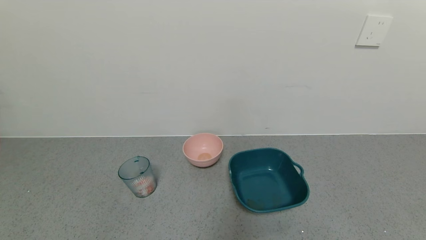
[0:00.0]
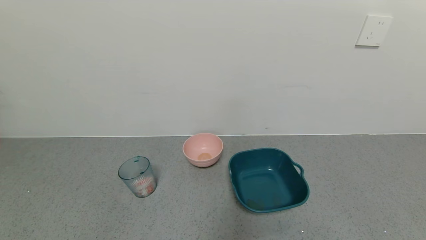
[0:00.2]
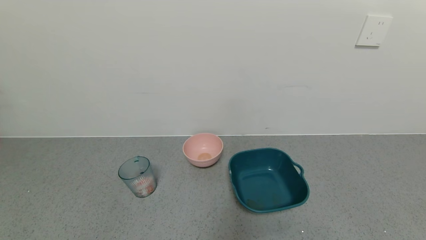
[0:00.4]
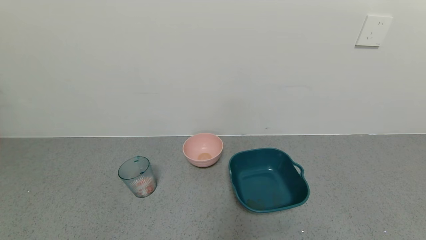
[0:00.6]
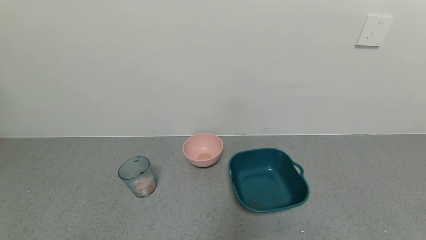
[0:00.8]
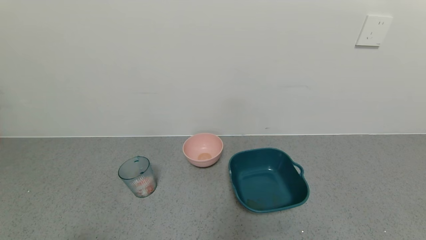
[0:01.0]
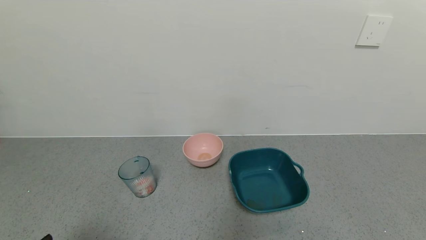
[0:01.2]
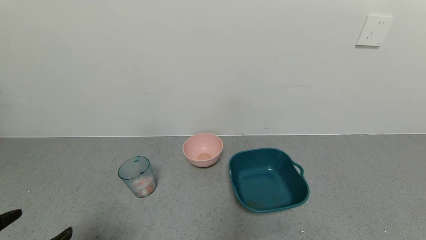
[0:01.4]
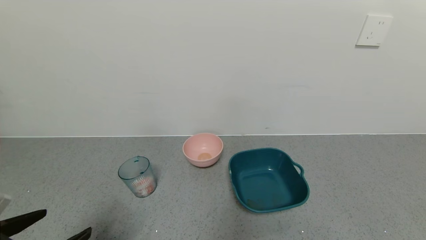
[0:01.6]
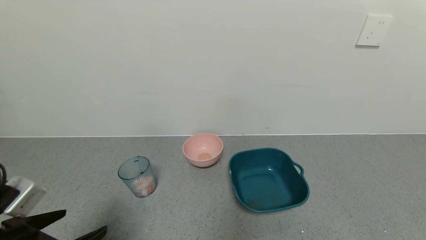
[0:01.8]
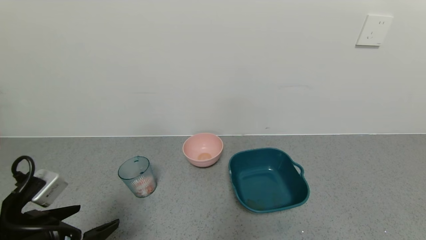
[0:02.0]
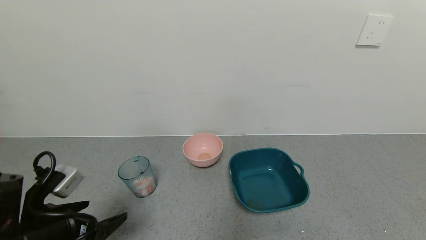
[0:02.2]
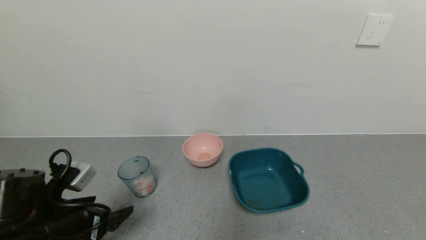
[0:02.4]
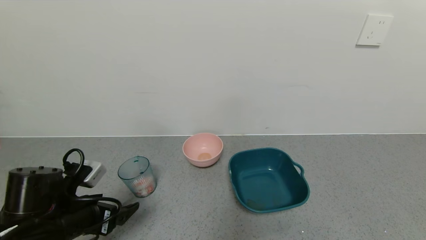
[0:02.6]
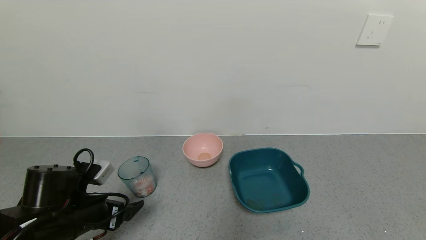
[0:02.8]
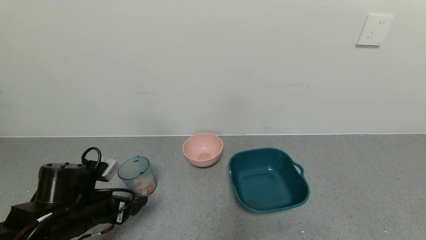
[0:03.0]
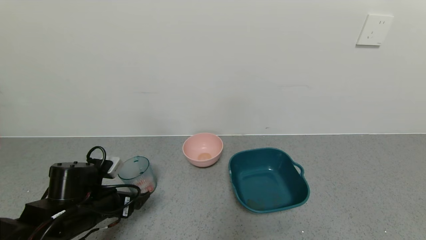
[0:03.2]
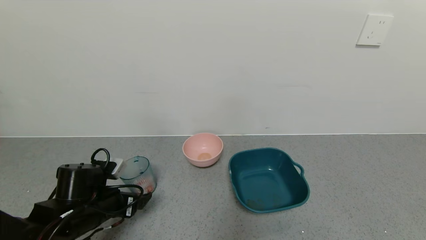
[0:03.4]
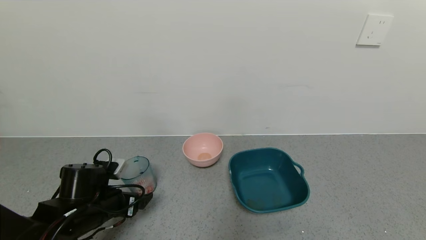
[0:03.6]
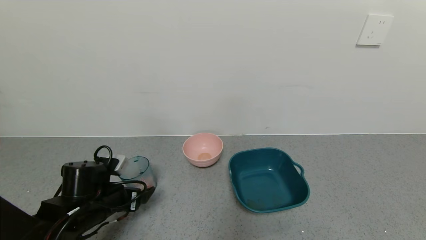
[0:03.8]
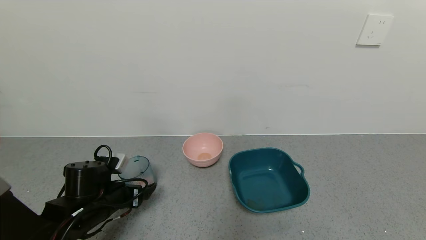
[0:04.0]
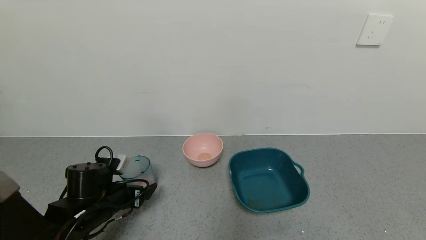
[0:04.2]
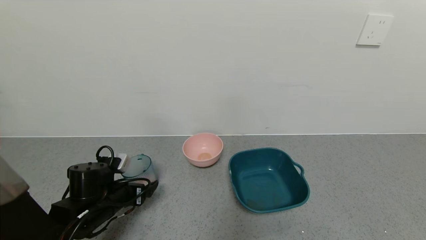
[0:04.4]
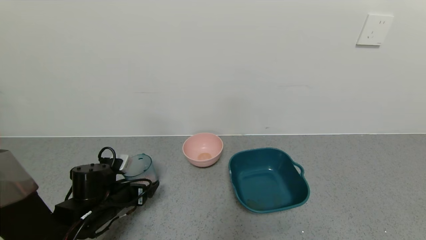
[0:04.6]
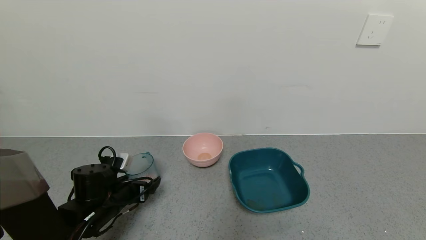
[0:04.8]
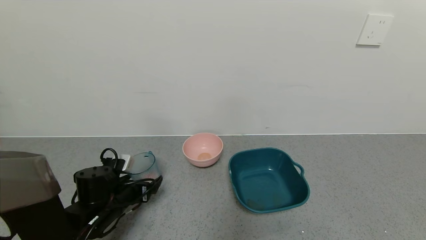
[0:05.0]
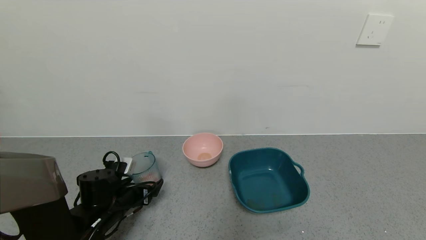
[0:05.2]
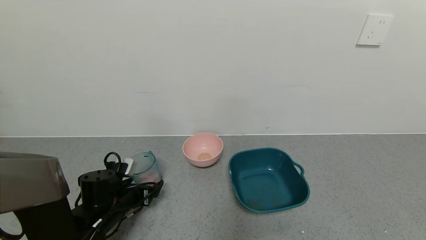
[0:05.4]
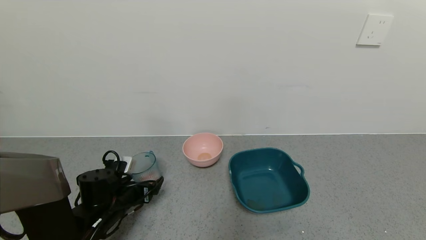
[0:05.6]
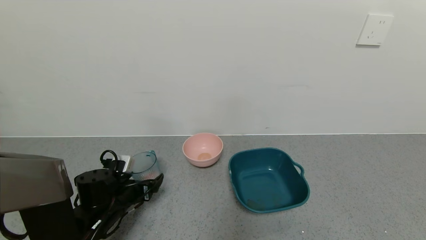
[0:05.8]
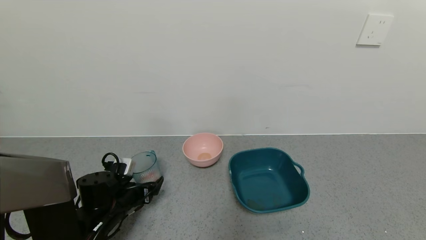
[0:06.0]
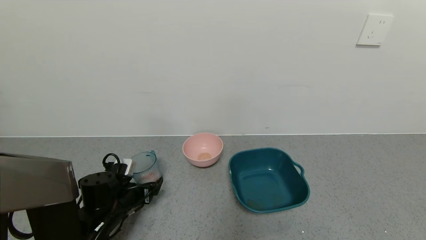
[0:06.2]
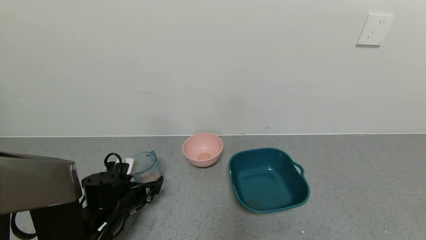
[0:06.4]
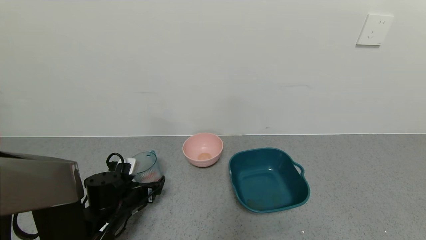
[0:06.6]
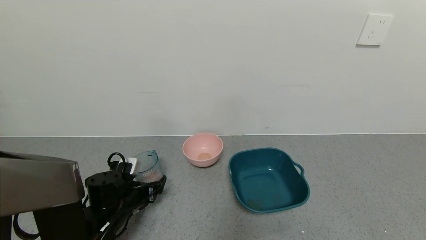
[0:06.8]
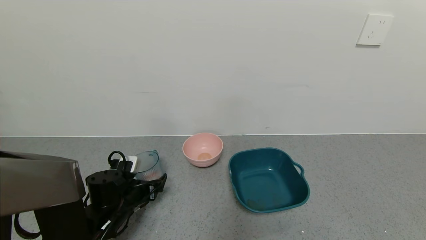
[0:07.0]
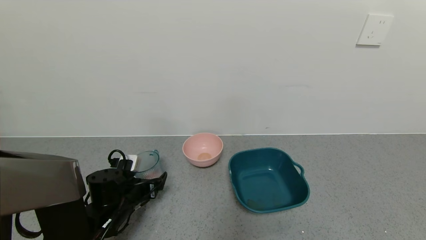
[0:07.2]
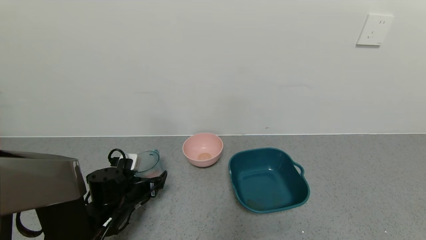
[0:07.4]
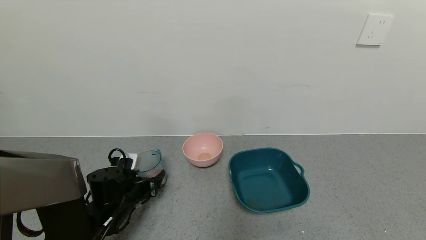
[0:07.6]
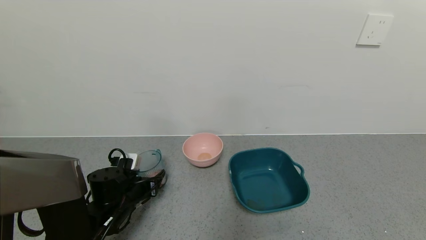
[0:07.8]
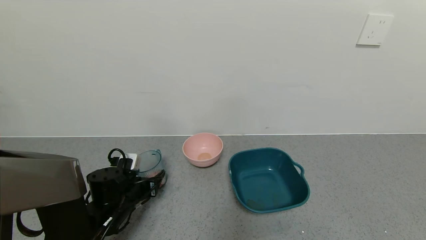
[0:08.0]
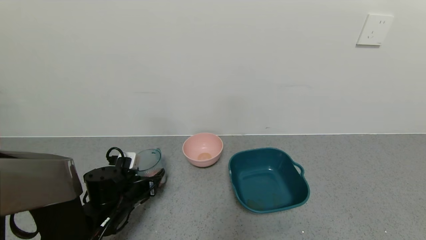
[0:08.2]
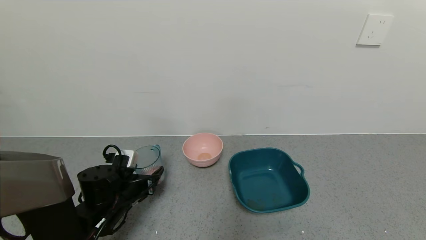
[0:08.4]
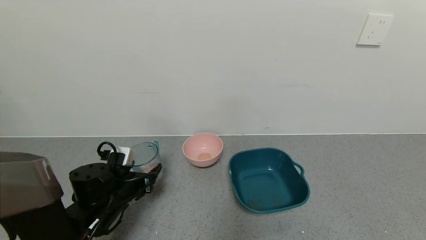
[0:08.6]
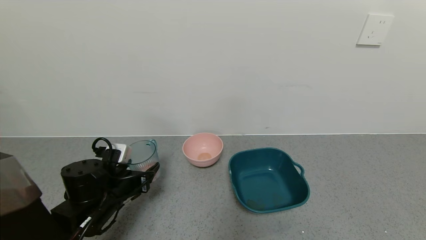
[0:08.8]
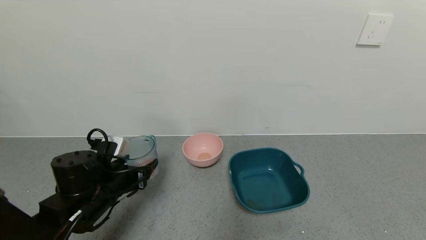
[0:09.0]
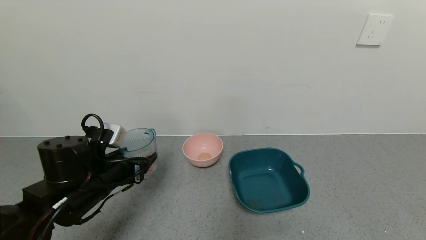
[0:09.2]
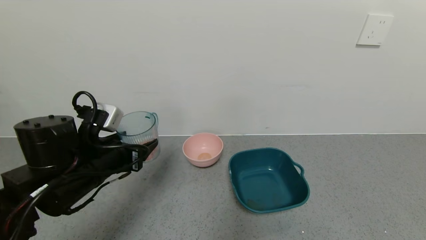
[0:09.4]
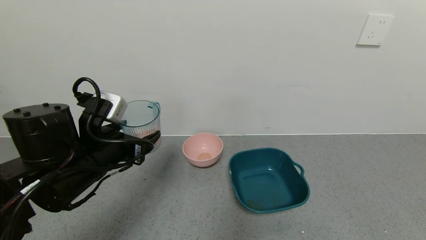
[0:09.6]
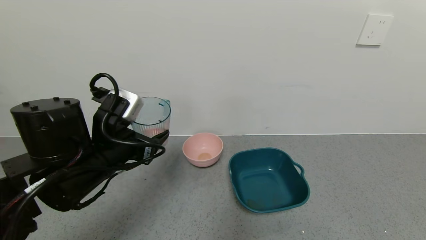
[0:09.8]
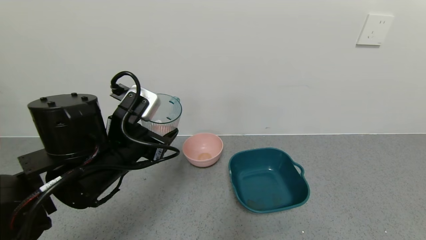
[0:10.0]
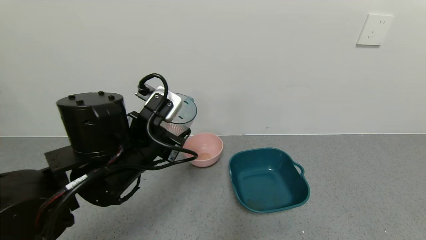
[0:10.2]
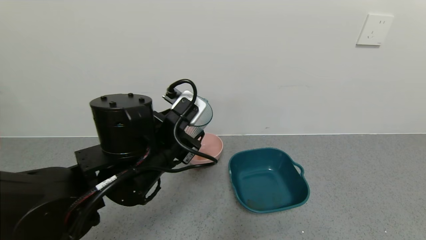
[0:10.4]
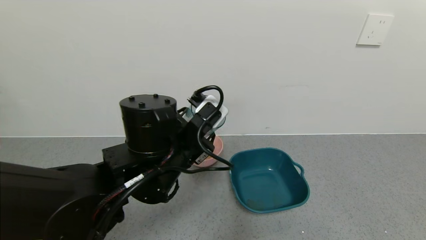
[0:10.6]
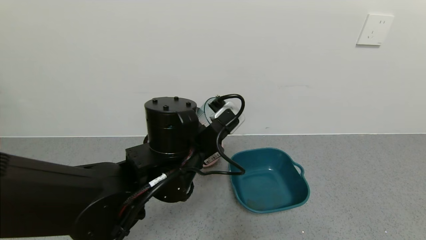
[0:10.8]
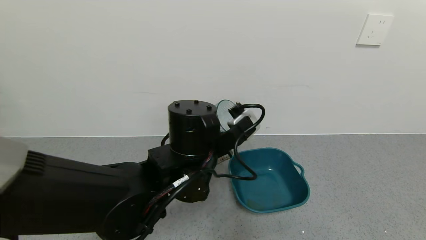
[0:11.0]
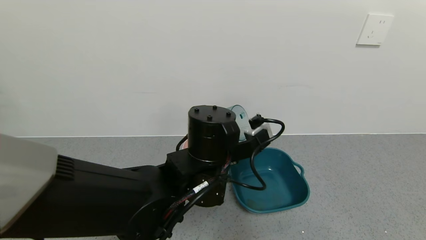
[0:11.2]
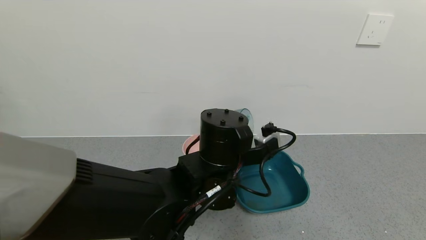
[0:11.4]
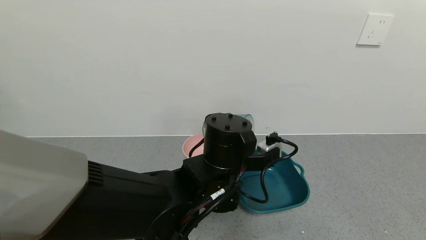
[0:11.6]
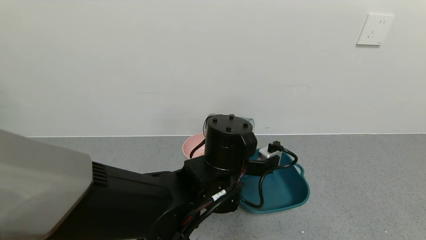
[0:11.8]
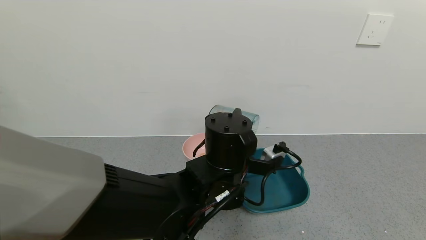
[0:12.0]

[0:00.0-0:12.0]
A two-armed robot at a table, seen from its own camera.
Task of the whole recording: use a gripper to pick up the cup and pour the solid into a bowl or tray.
Step, 0:00.0 to 0:07.6: Grasp the glass of shrimp with the left gripper.
0:00.0 to 0:01.6: The left gripper shifts approximately 15 cm forward and upward.
0:01.6 to 0:03.0: The left gripper is displaced forward and downward by approximately 15 cm.
0:03.0 to 0:04.4: The left gripper moves approximately 5 cm.
0:04.4 to 0:06.0: The grippers stay close to where they were, moving slightly.
0:06.0 to 0:07.6: The left gripper closes up.
0:07.6 to 0:09.0: The left gripper is displaced upward by roughly 10 cm.
0:09.0 to 0:10.4: The left gripper is displaced to the right and upward by roughly 15 cm.
0:10.4 to 0:12.0: The left gripper shifts some 10 cm to the right.

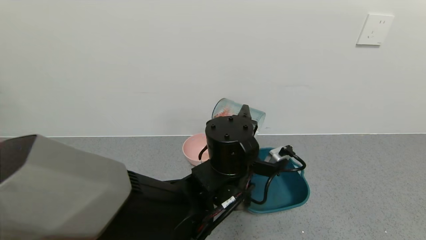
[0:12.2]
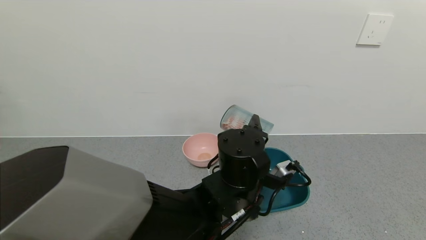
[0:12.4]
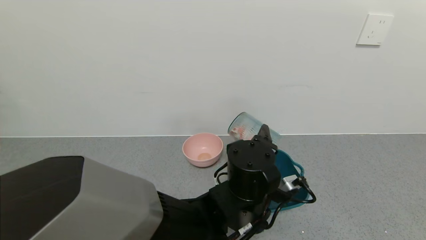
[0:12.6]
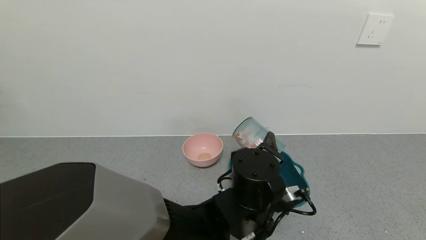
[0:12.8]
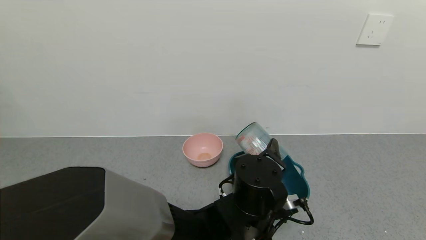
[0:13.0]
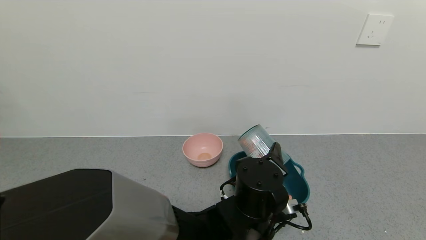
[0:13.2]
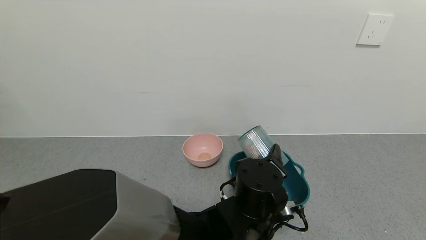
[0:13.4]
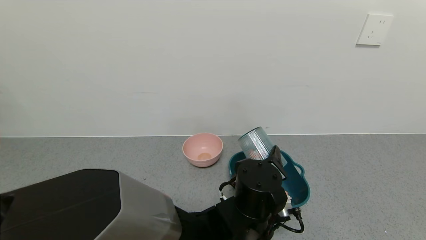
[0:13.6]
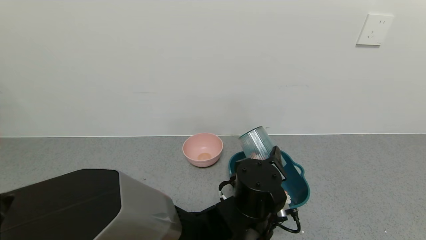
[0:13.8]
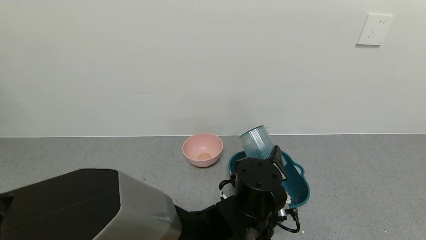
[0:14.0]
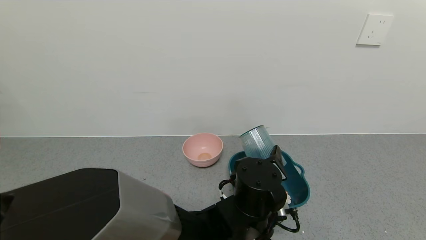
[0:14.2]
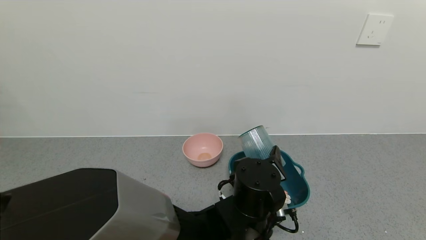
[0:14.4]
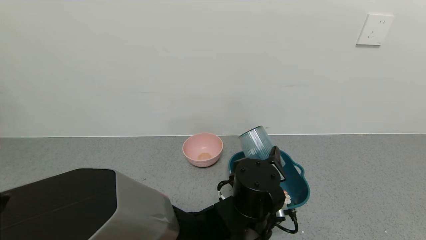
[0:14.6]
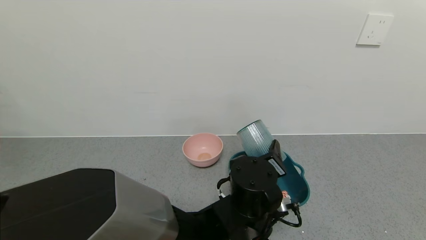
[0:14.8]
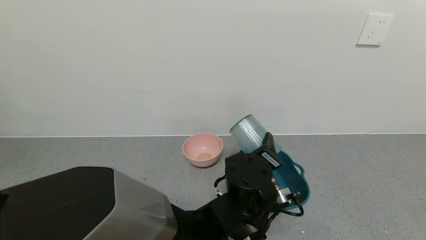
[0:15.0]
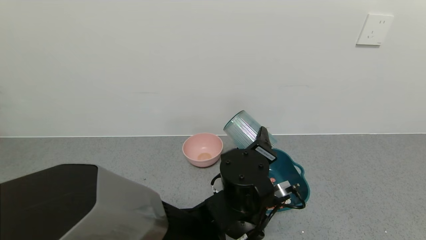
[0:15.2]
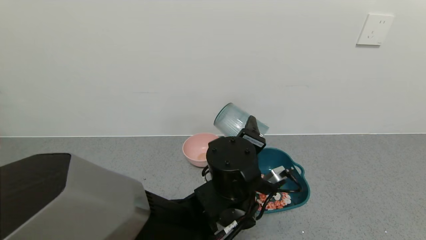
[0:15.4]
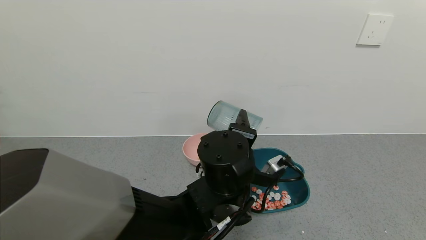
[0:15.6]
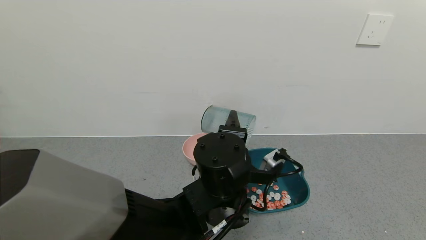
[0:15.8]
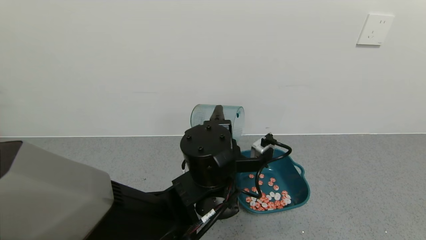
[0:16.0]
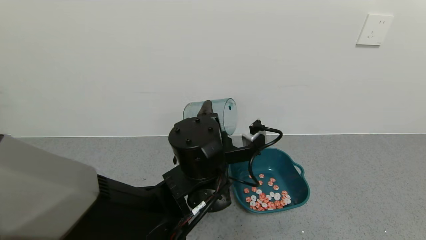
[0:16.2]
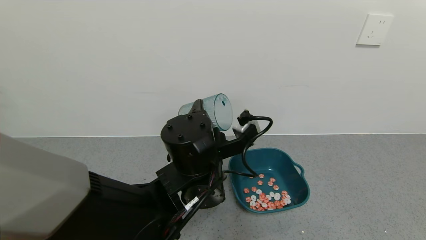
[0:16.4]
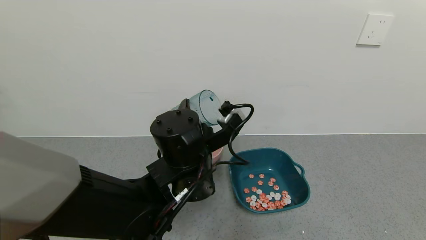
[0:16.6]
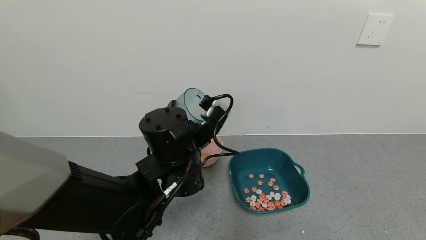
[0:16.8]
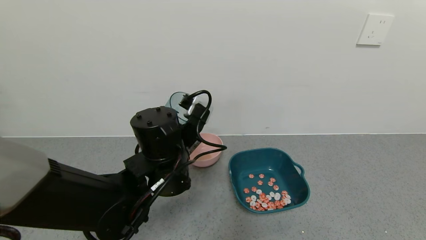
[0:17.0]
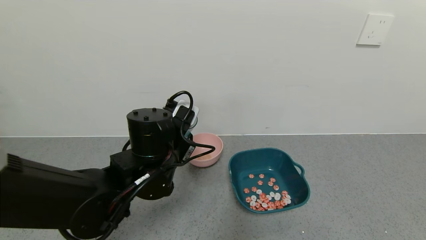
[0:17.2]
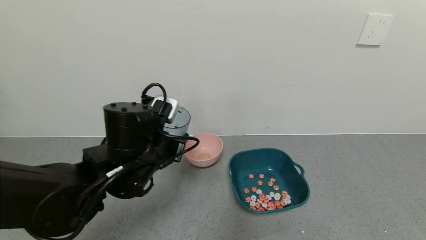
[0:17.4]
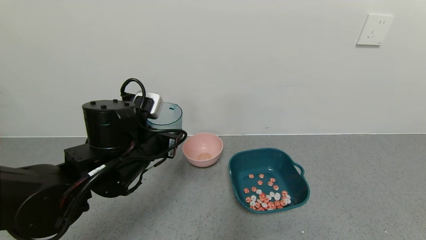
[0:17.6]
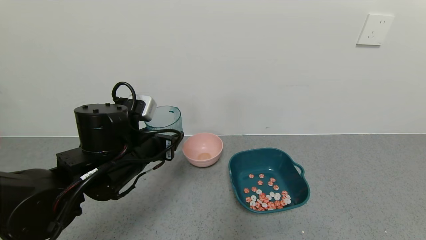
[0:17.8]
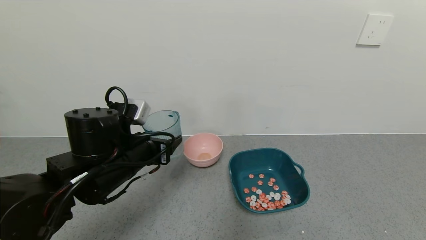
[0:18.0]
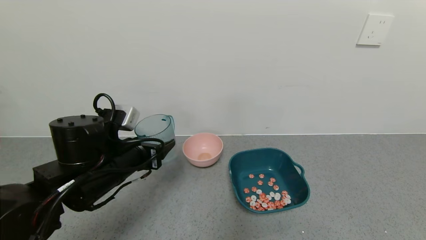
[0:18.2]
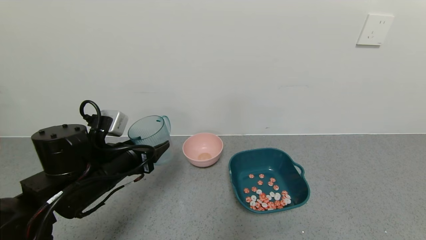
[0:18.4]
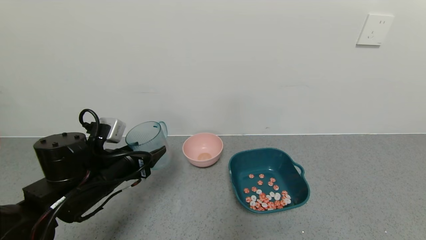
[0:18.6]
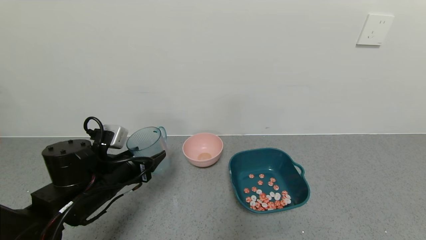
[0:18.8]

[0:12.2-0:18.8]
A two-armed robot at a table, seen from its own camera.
Task of the whole recording: use a gripper to pick up the cup and pour the solid into a bowl or tray.
Step, 0:12.2 to 0:15.6: Pour the shrimp beans into the green bowl with the left gripper.
0:12.2 to 0:13.8: The left gripper goes about 5 cm downward.
0:15.4 to 0:17.2: The left gripper shifts roughly 15 cm to the left.
0:17.2 to 0:18.8: The left gripper shifts approximately 15 cm to the left and downward.
